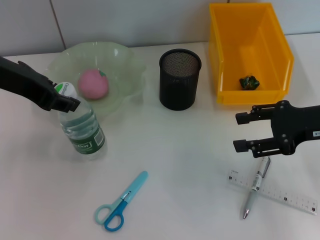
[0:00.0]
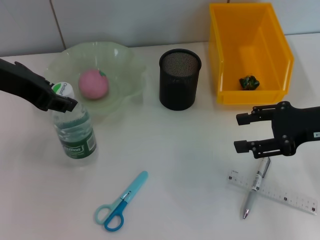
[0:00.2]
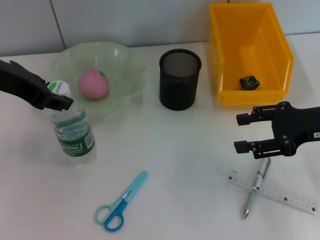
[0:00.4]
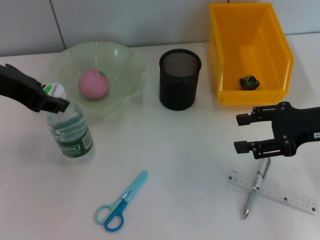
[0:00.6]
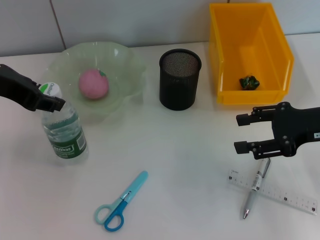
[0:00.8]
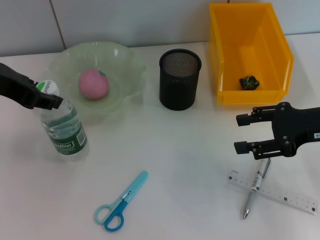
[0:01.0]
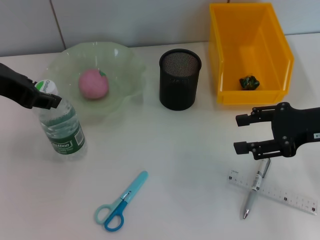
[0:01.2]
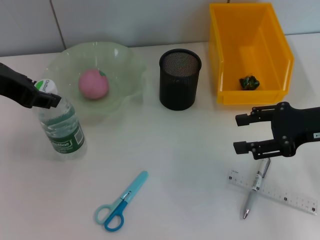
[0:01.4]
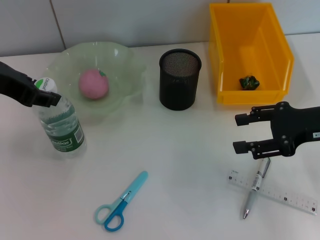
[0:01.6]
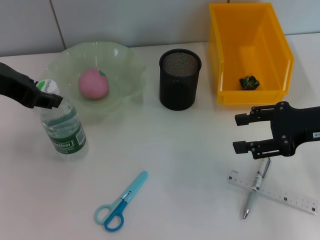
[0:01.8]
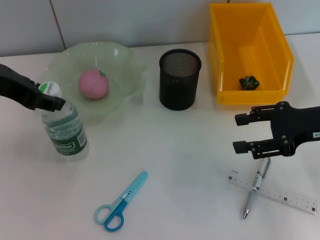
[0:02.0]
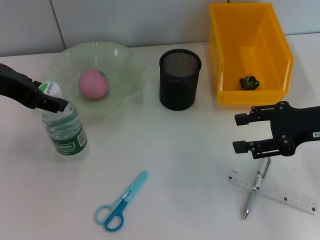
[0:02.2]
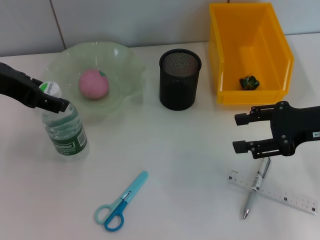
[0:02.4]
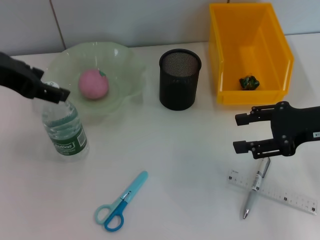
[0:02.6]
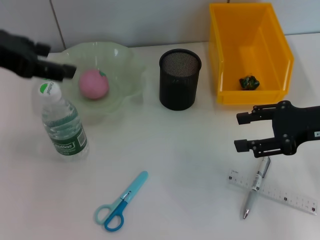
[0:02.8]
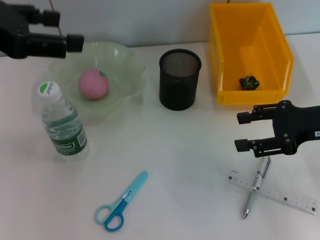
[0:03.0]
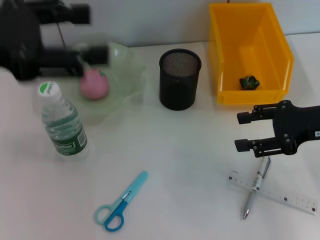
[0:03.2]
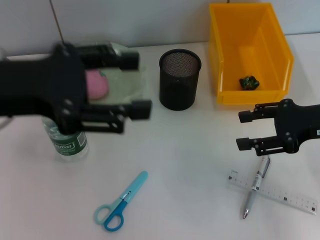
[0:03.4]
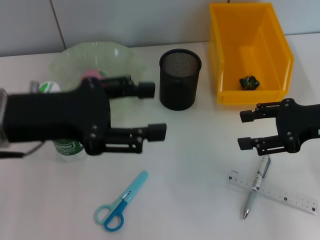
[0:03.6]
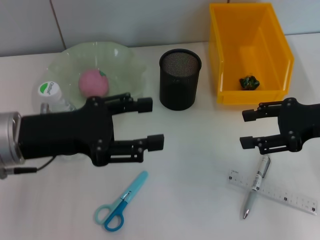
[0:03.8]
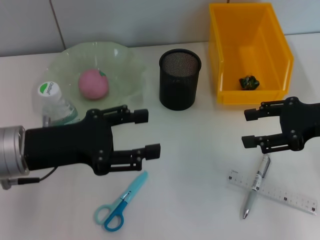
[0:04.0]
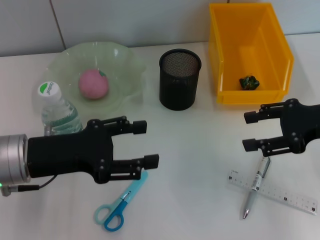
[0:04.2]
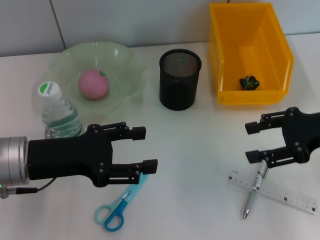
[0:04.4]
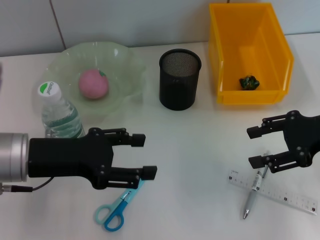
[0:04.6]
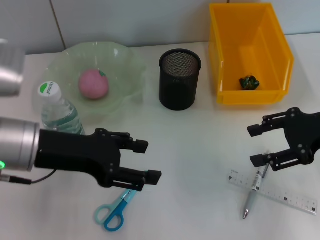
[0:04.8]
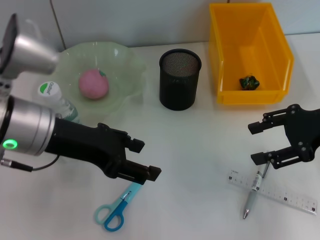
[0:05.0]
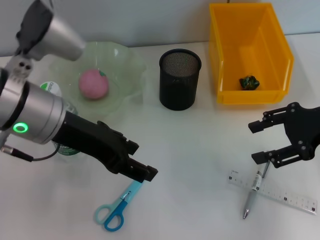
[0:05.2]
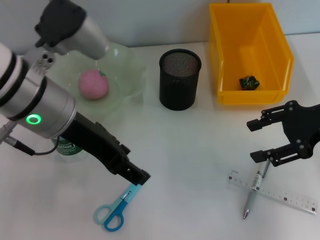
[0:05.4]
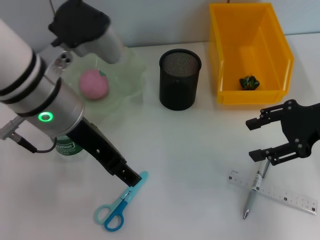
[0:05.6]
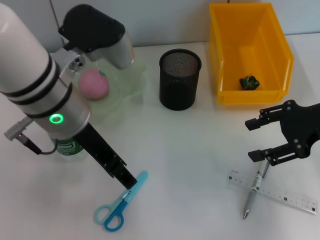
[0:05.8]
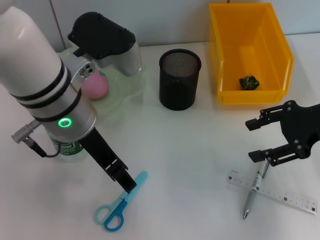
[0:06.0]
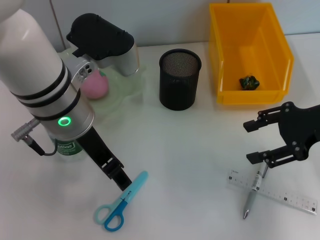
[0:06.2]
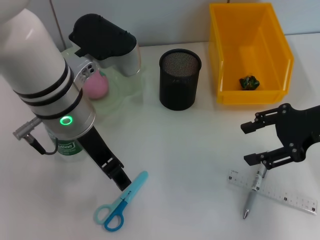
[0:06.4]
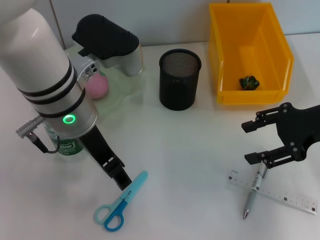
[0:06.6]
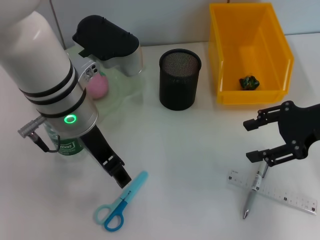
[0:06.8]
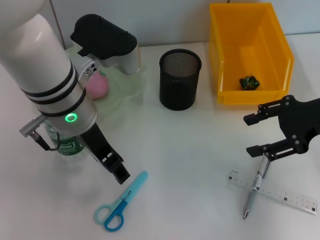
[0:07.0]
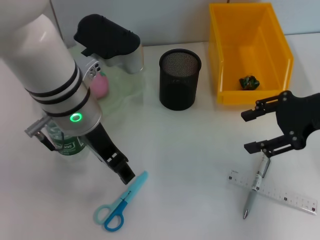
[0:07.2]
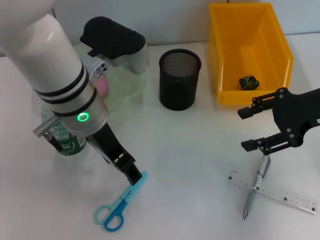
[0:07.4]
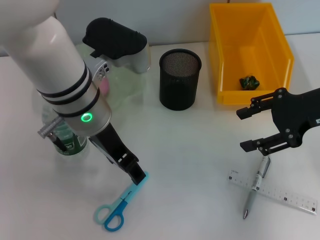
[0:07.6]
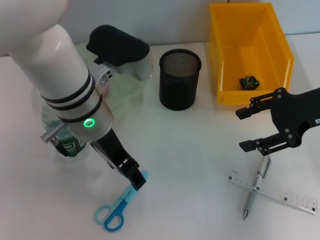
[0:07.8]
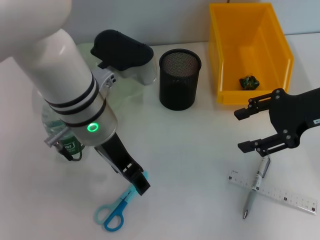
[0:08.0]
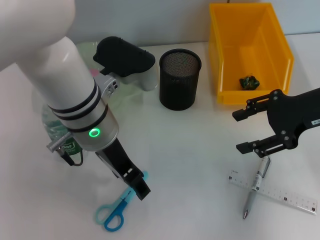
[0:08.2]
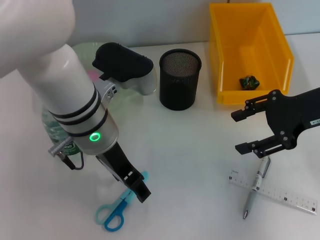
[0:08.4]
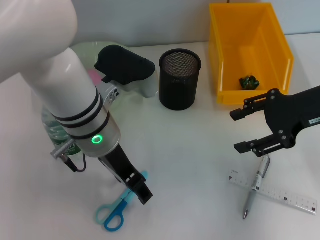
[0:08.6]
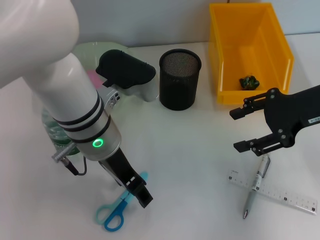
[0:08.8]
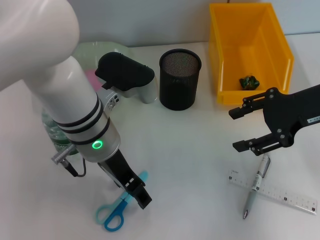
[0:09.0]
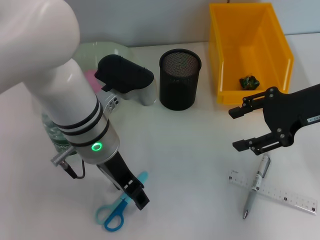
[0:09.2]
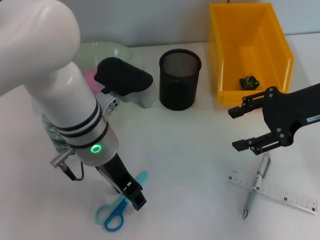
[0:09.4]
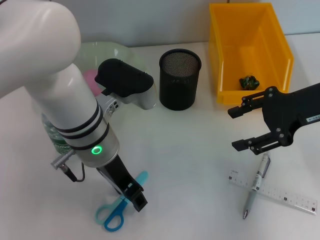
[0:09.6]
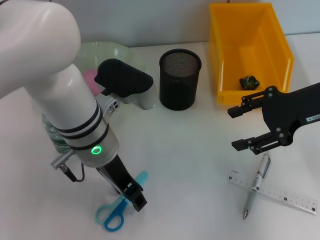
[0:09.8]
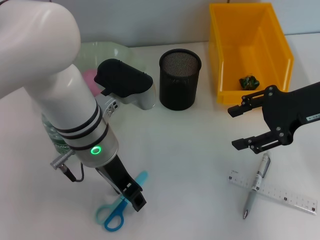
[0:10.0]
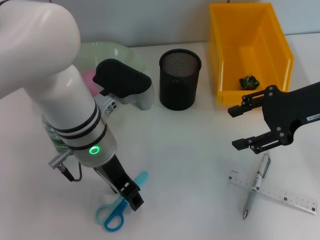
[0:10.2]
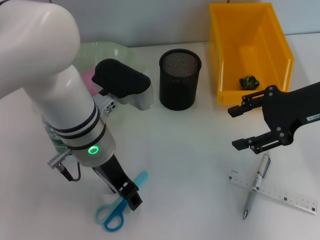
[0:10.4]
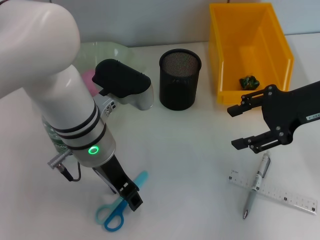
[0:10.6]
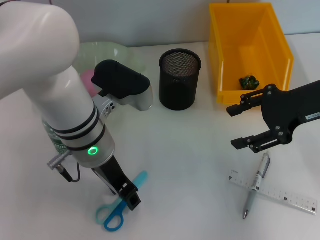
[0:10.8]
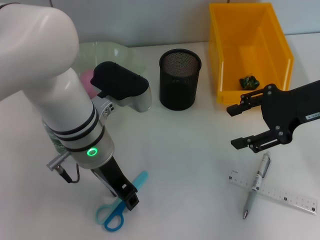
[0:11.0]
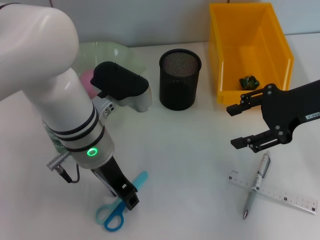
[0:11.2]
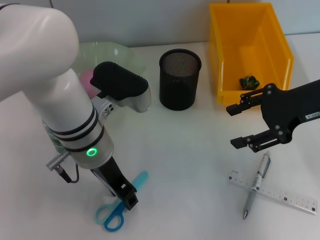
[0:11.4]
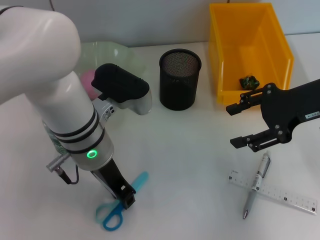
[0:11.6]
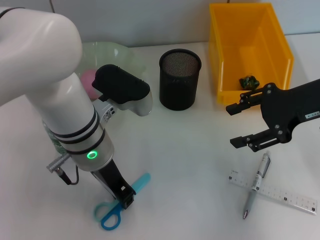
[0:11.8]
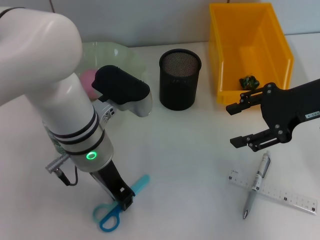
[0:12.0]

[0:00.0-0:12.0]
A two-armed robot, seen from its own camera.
Step, 0:00.0 to 0:02.2: Place the water bottle on the table with the left hand.
Step, 0:02.4 to 0:11.4: Grab the blue scissors with the left hand.
0:00.0 to 0:01.6: The grippers make only small movements.
0:01.6 to 0:03.0: The left gripper ends up some 5 cm from where it was, and opens its fingers.
0:03.0 to 0:04.4: The left gripper is displaced downward by roughly 20 cm.
0:04.4 to 0:06.0: The left gripper is displaced to the right and upward by approximately 15 cm.
0:09.0 to 0:10.4: Both grippers stay put.
0:10.4 to 0:12.0: The left gripper closes.

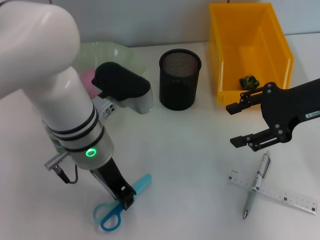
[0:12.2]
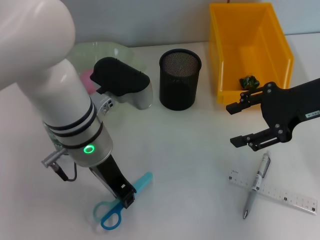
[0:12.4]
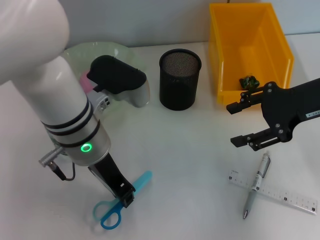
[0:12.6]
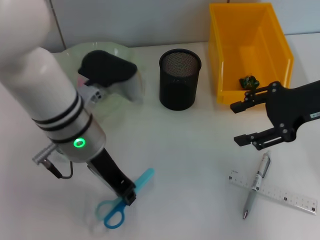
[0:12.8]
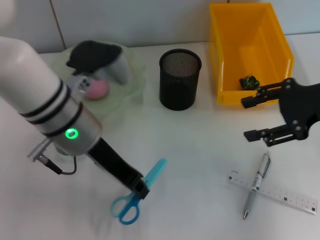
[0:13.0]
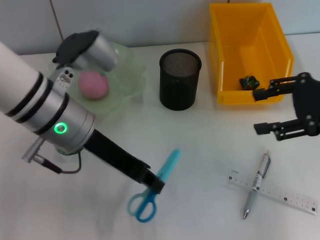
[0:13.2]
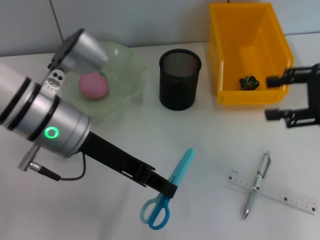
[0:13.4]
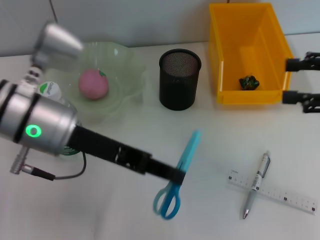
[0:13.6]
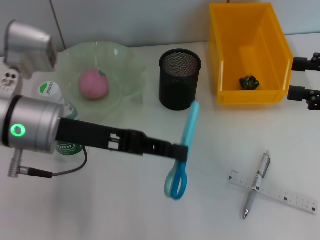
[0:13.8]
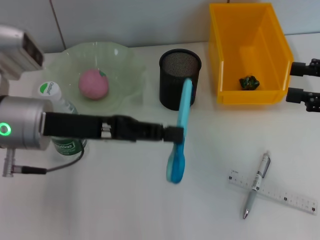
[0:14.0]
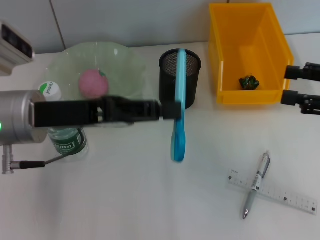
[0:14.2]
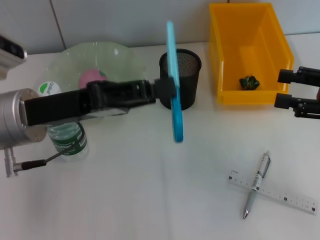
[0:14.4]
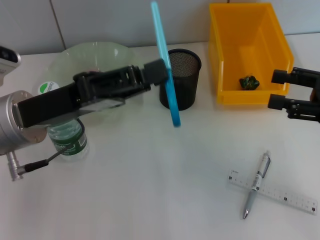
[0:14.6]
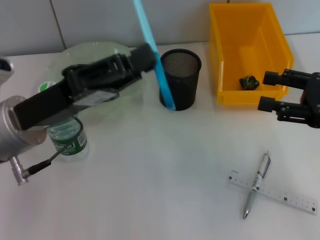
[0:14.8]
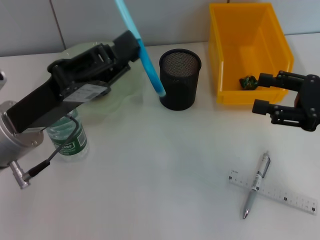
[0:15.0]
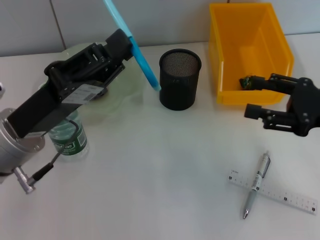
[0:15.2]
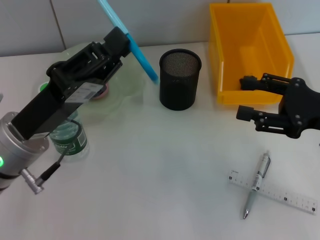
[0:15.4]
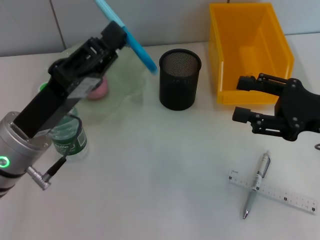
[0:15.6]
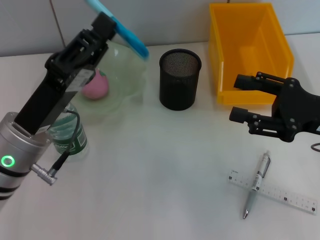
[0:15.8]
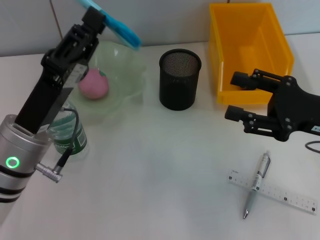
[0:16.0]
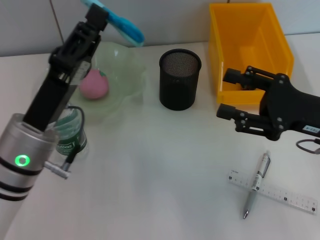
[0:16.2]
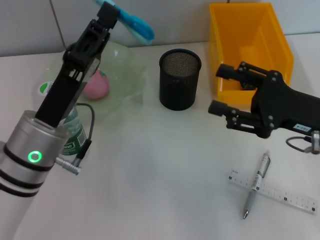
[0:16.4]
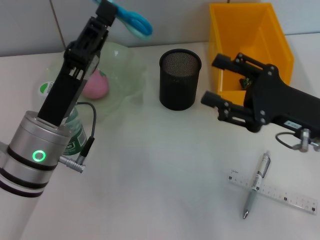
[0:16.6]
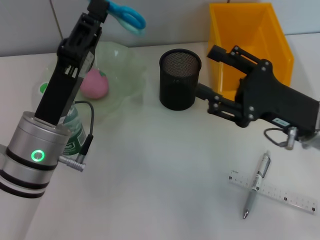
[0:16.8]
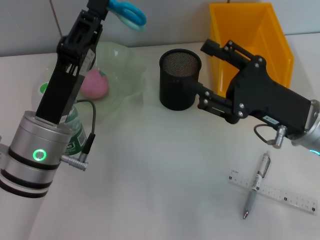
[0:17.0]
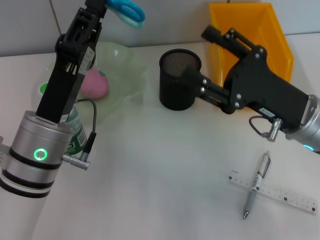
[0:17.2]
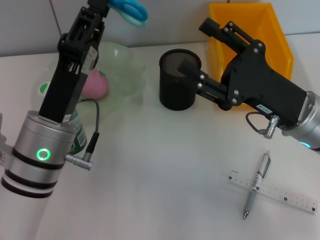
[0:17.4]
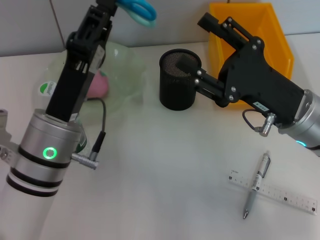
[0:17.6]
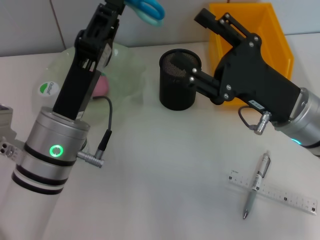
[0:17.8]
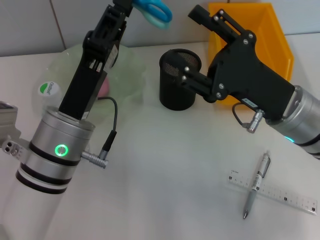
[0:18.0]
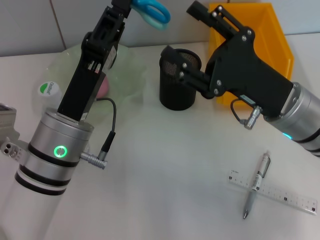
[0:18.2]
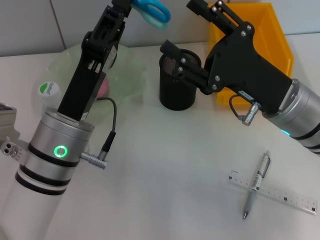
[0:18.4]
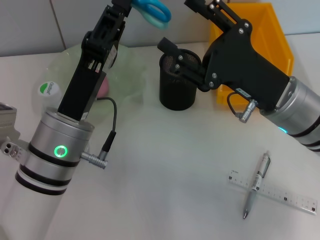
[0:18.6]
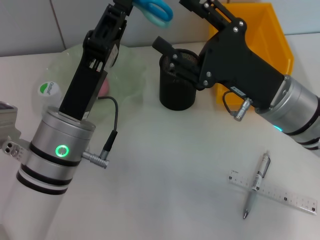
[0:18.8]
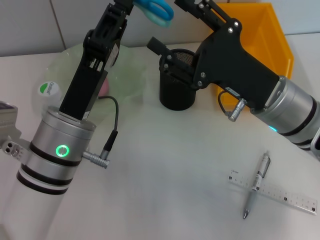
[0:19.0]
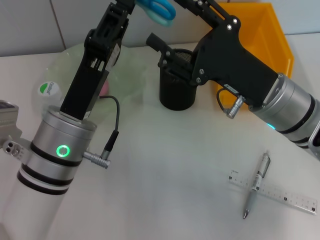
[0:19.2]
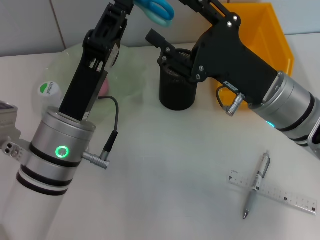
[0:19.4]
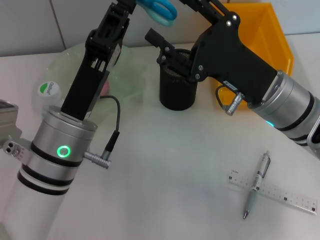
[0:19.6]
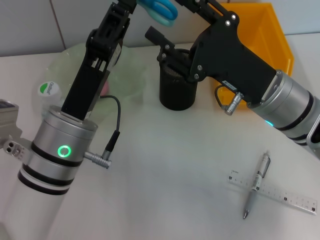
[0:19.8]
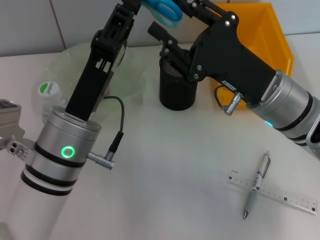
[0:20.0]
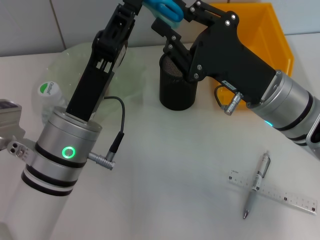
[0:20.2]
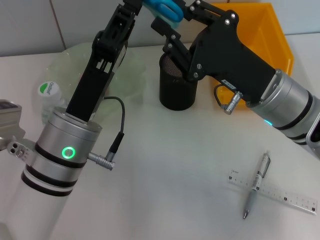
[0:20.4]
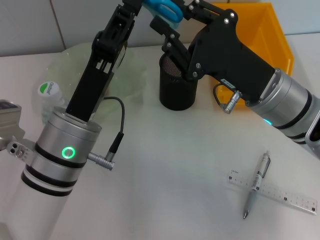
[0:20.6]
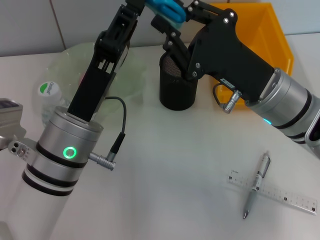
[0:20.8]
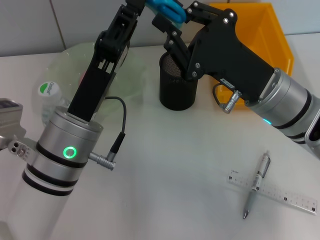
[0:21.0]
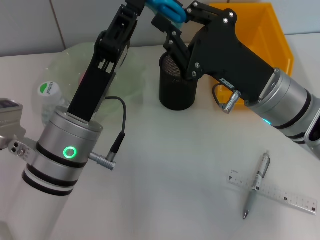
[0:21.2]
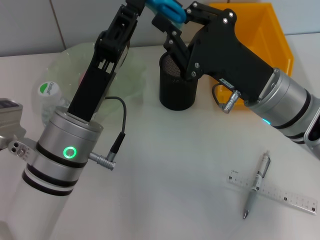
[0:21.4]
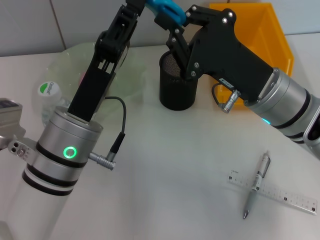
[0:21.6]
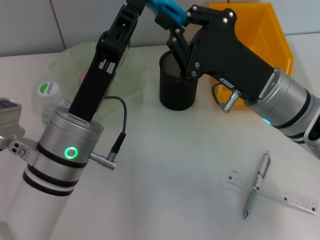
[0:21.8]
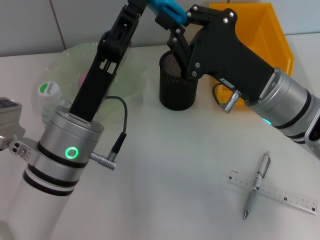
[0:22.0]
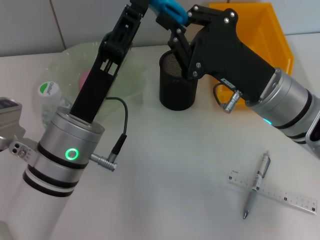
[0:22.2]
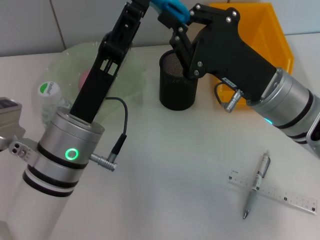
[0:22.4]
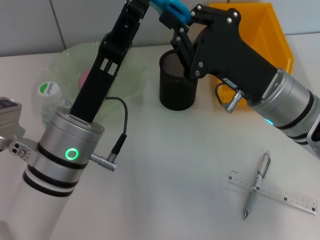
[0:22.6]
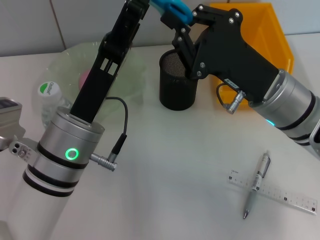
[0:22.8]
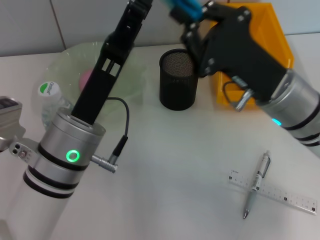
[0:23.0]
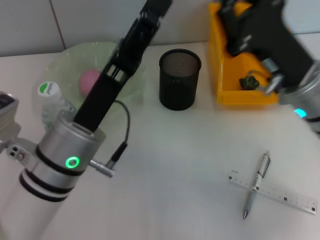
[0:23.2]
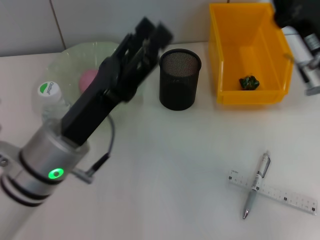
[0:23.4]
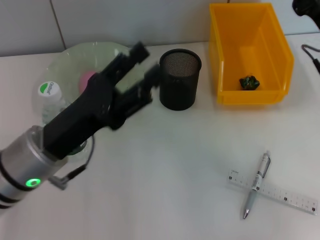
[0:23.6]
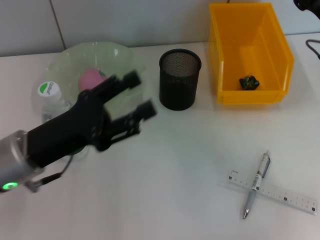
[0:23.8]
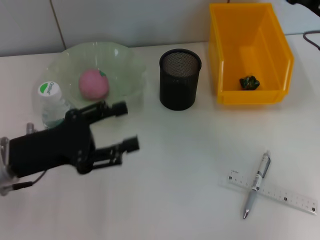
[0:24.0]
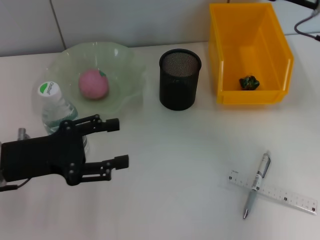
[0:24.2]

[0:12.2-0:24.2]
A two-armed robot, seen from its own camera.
Step, 0:12.2 to 0:22.0: Pass the blue scissors from the left hand to the right hand.
0:12.2 to 0:13.8: The left gripper heads to the left, covering roughly 10 cm, while the right gripper goes roughly 10 cm to the right and backward.
0:13.8 to 0:15.2: The right gripper goes about 5 cm to the left. The left gripper ends up approximately 5 cm from where it was.
0:15.2 to 0:16.6: The right gripper is displaced to the left by some 5 cm.
0:16.6 to 0:18.2: The right gripper travels to the left by roughly 5 cm.
0:18.2 to 0:19.8: The grippers move only a little.
0:19.8 to 0:21.2: The right gripper closes its fingers.
0:21.2 to 0:22.6: The two grippers keep their place.
0:22.6 to 0:24.2: The left gripper shifts roughly 15 cm to the left, and opens its fingers. Meanwhile the right gripper goes about 15 cm to the right, upward and forward.
